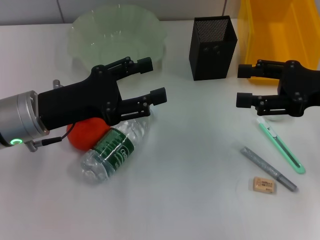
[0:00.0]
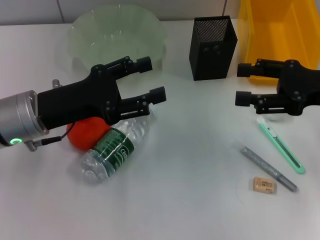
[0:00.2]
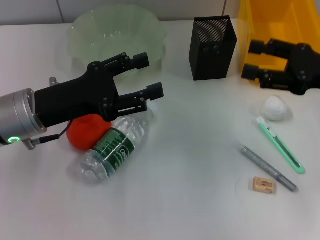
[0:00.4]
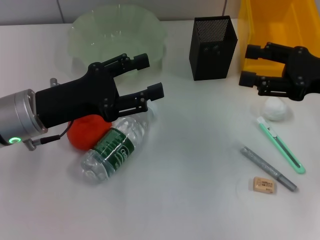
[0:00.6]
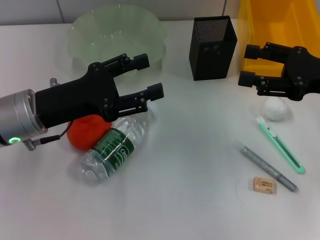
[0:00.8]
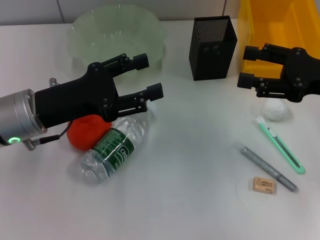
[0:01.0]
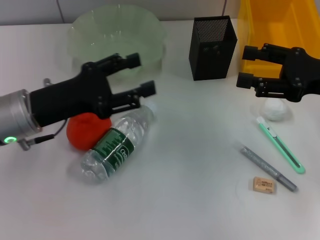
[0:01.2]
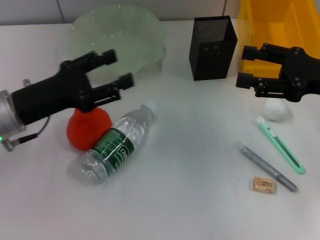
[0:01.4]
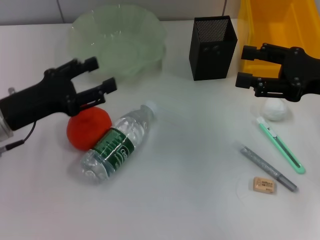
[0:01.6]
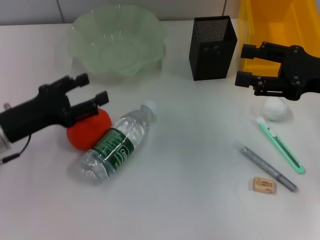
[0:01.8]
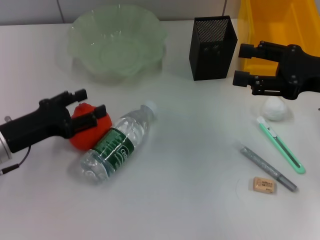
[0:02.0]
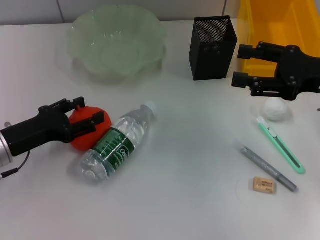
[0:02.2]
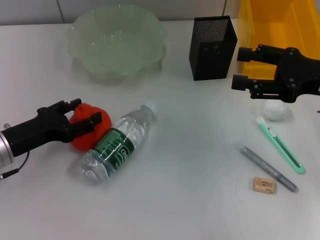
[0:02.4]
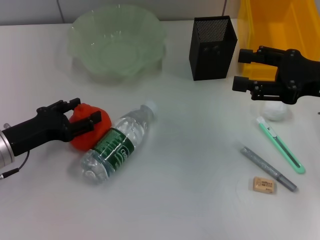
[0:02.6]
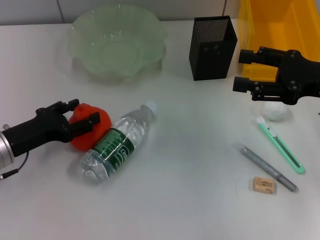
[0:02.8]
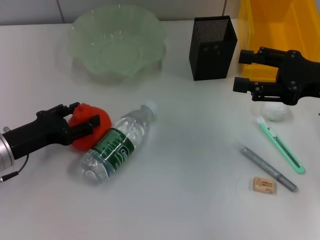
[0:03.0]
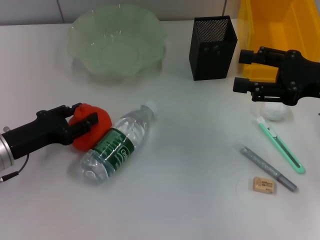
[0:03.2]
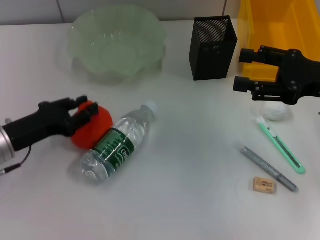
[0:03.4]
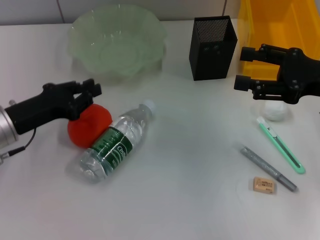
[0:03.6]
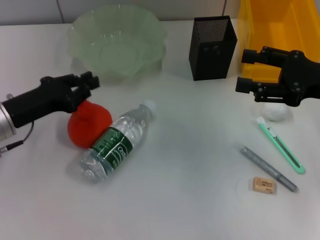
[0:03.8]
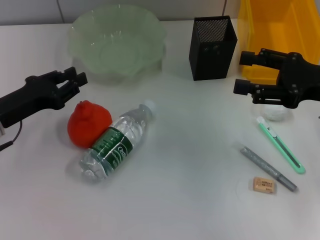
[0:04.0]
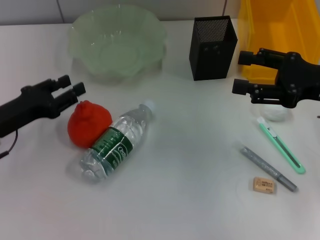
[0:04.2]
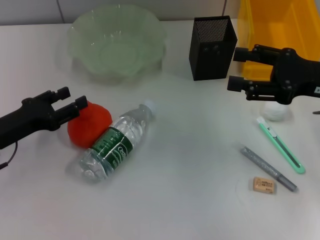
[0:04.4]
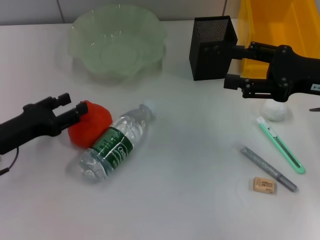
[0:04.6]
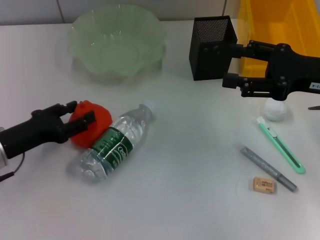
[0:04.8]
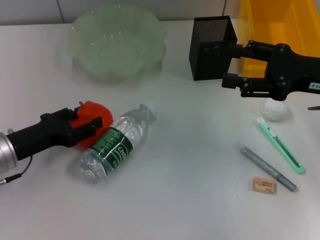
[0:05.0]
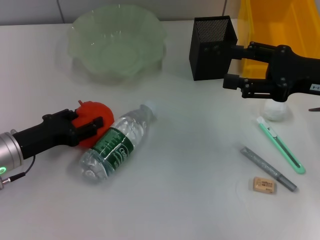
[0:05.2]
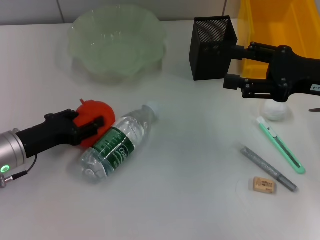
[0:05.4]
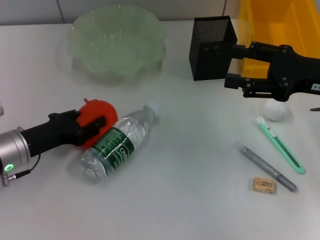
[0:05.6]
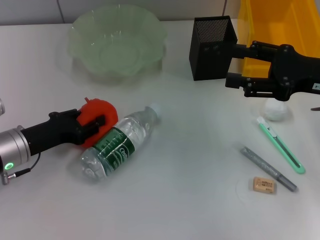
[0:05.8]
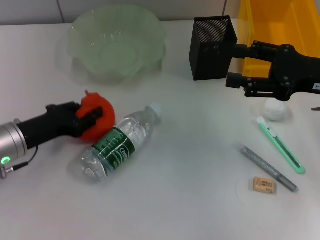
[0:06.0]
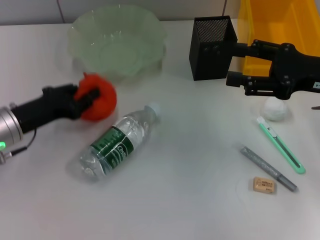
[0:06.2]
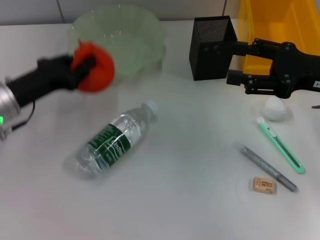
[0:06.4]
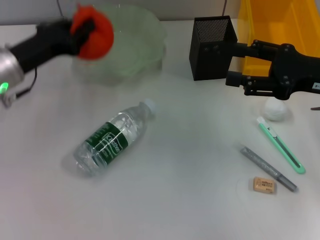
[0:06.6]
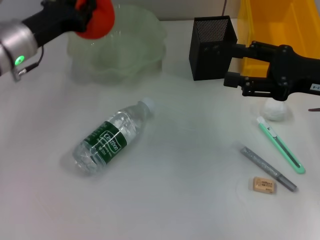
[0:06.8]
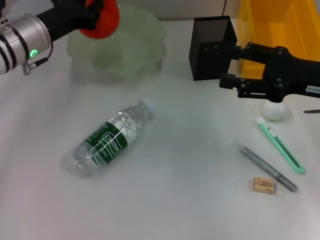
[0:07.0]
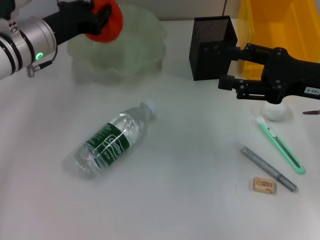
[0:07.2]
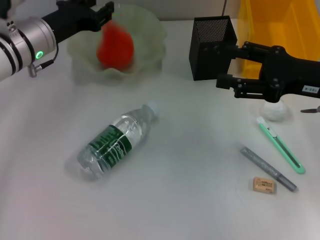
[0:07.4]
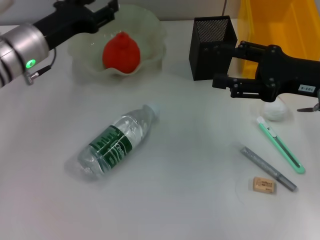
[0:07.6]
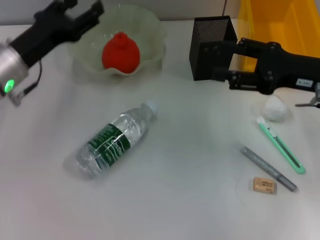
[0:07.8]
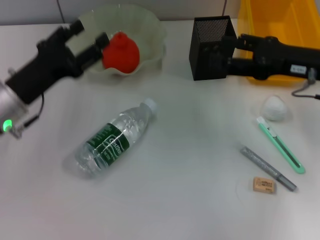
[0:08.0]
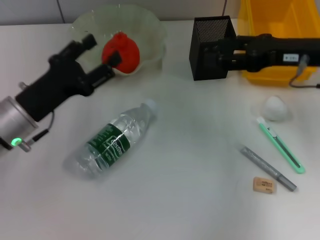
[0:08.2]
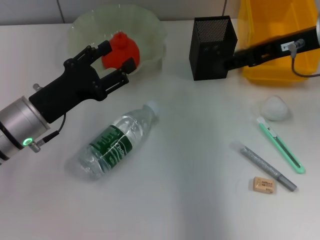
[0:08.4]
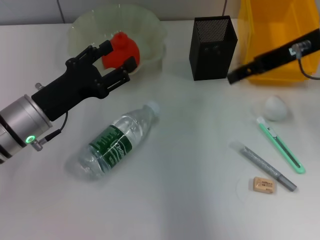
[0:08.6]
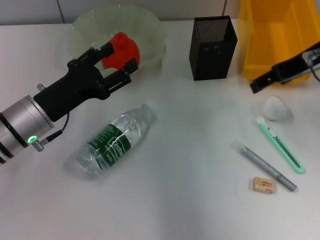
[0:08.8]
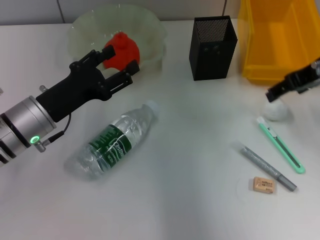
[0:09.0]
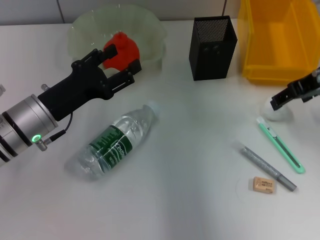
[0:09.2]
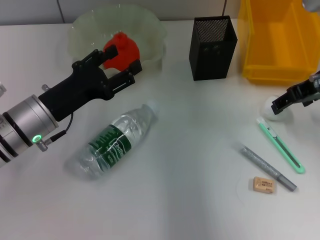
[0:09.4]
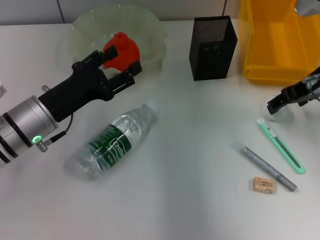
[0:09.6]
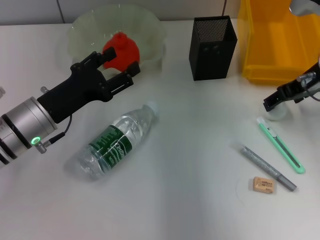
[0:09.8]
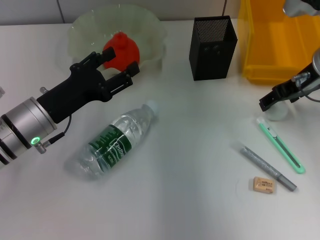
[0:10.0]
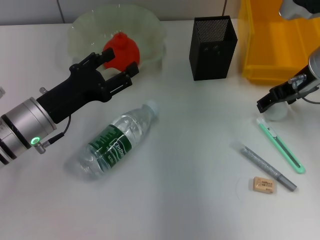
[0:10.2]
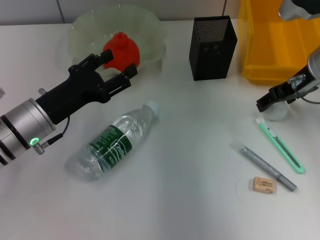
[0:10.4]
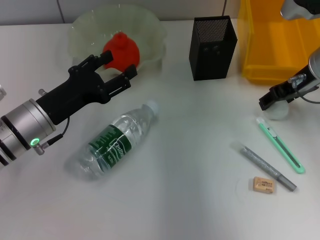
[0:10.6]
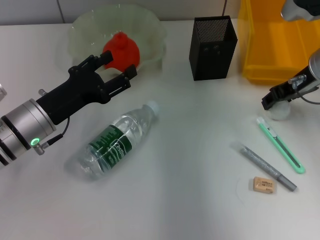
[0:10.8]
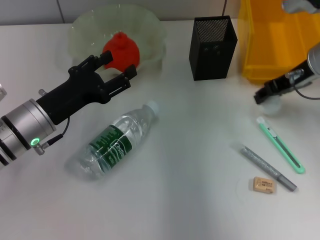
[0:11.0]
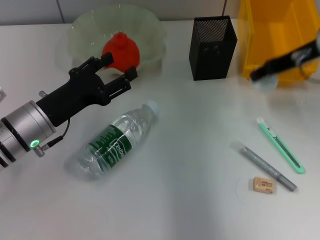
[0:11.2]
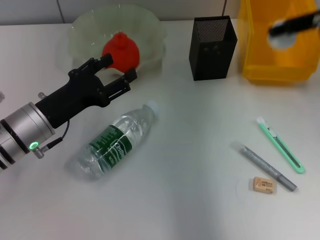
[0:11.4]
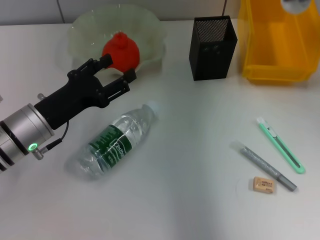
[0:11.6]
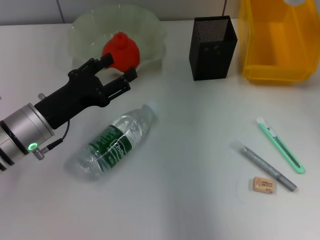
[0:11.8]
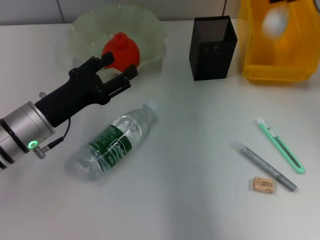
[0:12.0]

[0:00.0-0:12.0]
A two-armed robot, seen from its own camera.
Step, 0.0 to 5.8 s: Grab the orange with the left hand.
Step, 6.0 to 7.8 s: Place the orange into the fruit bowl with the left hand.
Step, 8.0 to 10.6 s: Grab the paper ball with the right hand.
0.0 to 1.6 s: The left gripper travels to the left by about 5 cm.
1.6 to 3.0 s: The left gripper goes about 5 cm downward.
3.0 to 4.4 s: The left gripper closes, then opens again.
4.4 to 6.0 s: The grippers make only small movements.
6.0 to 7.6 s: The left gripper travels forward, upward and to the right by approximately 15 cm.
7.6 to 9.0 s: The left gripper goes about 10 cm backward and downward, and opens. Meanwhile the right gripper goes some 10 cm upward and forward.
9.0 to 10.4 s: The right gripper moves downward, approximately 5 cm.
10.4 to 12.0 s: The right gripper moves upward, roughly 10 cm, and closes.

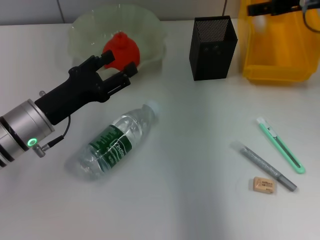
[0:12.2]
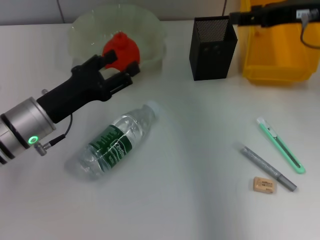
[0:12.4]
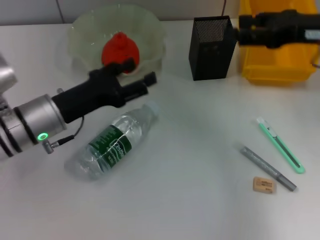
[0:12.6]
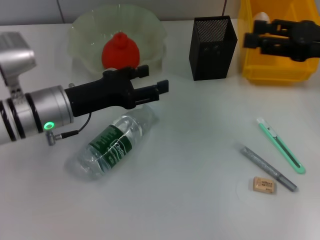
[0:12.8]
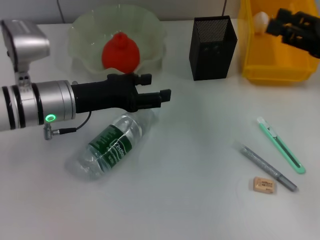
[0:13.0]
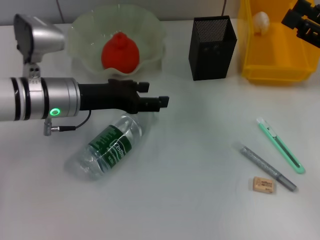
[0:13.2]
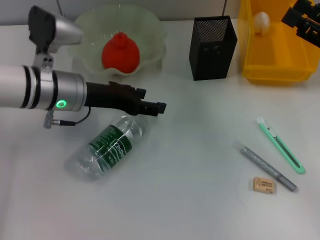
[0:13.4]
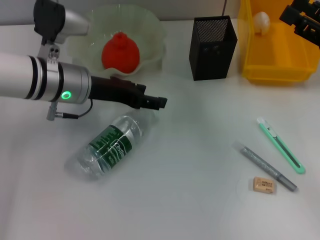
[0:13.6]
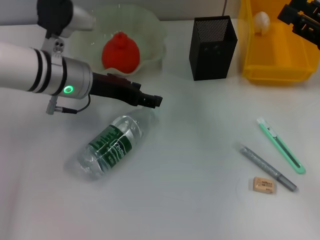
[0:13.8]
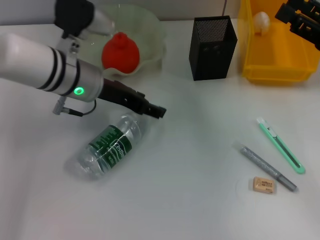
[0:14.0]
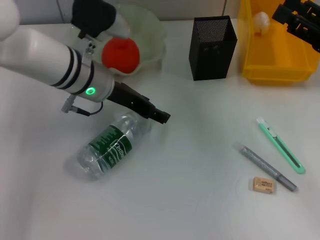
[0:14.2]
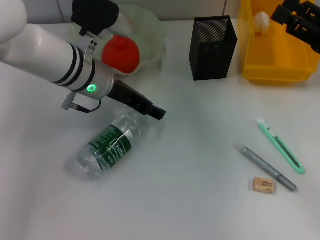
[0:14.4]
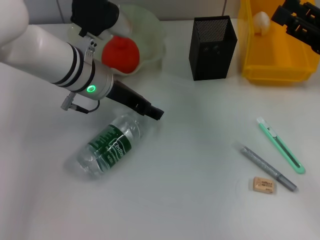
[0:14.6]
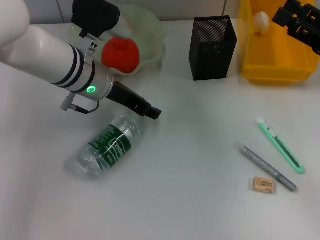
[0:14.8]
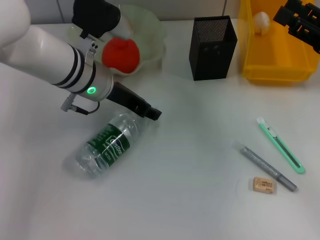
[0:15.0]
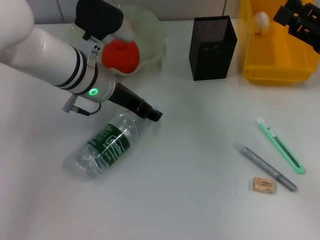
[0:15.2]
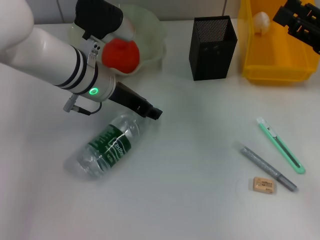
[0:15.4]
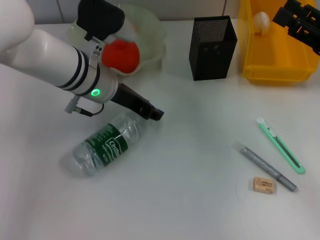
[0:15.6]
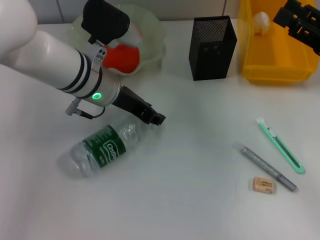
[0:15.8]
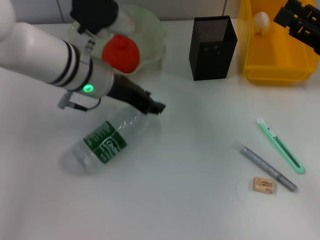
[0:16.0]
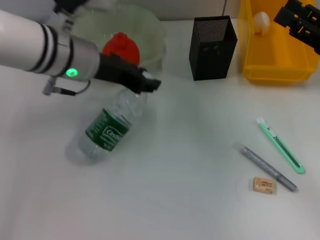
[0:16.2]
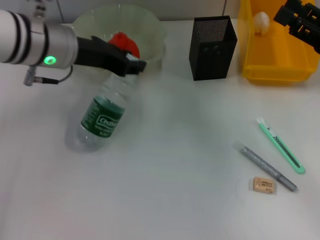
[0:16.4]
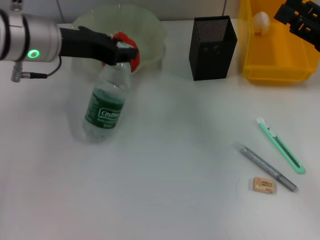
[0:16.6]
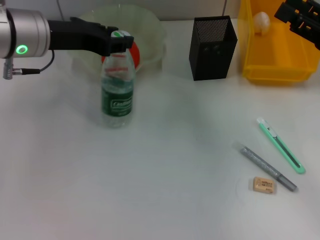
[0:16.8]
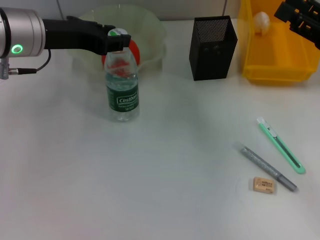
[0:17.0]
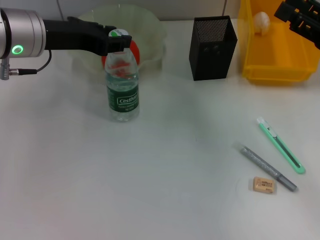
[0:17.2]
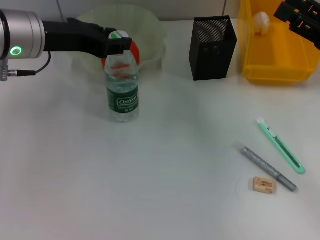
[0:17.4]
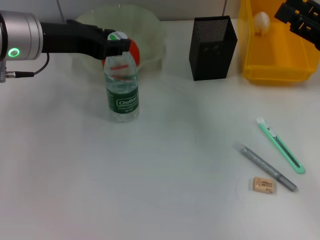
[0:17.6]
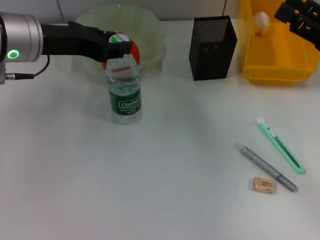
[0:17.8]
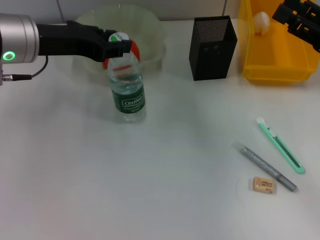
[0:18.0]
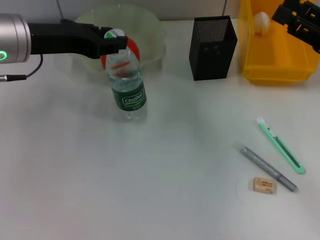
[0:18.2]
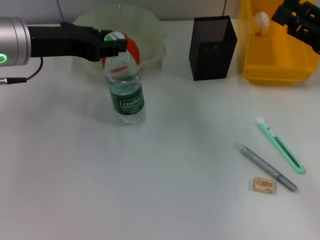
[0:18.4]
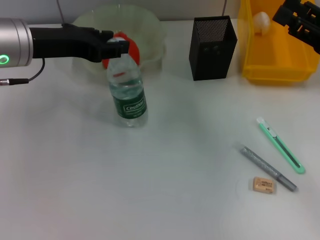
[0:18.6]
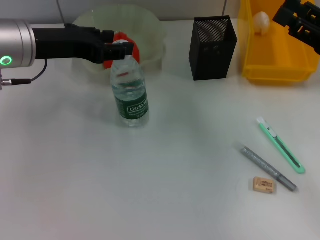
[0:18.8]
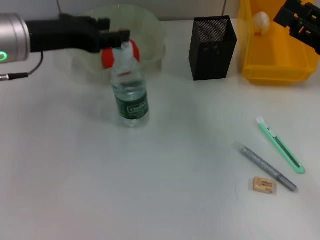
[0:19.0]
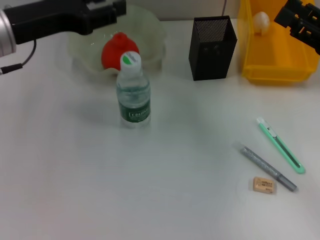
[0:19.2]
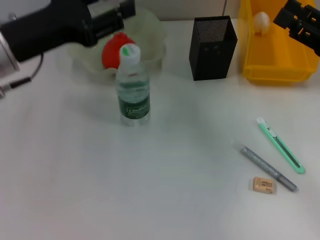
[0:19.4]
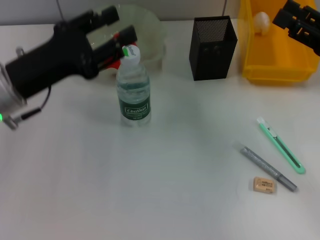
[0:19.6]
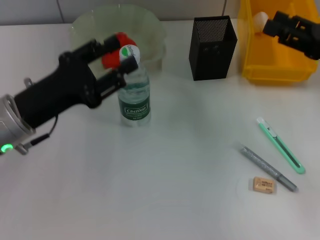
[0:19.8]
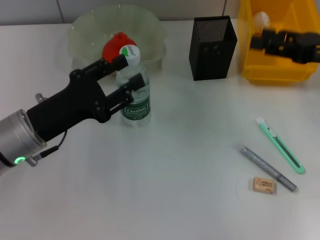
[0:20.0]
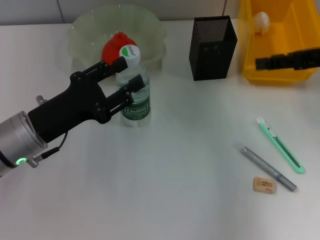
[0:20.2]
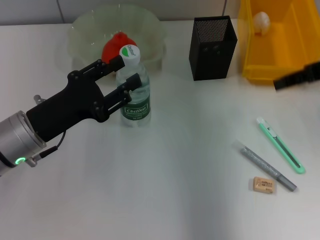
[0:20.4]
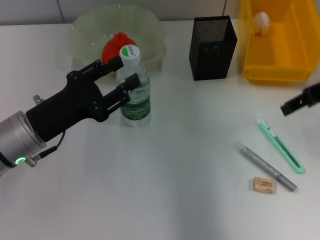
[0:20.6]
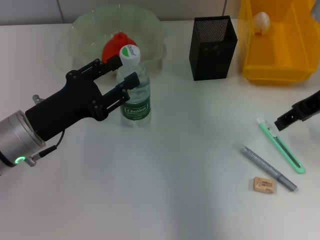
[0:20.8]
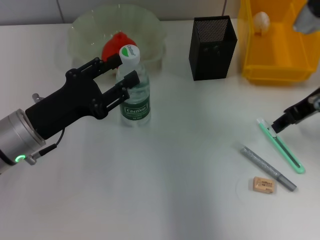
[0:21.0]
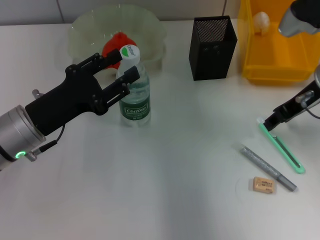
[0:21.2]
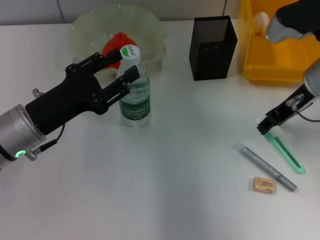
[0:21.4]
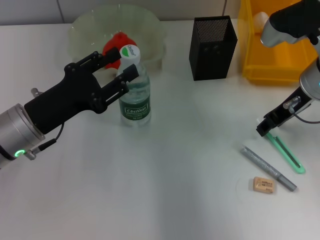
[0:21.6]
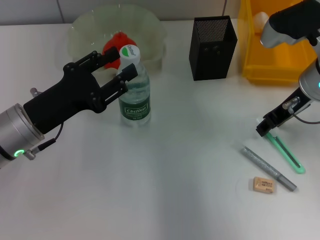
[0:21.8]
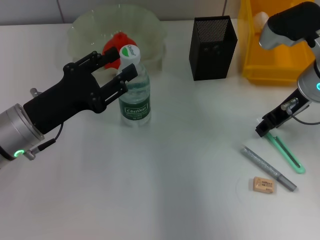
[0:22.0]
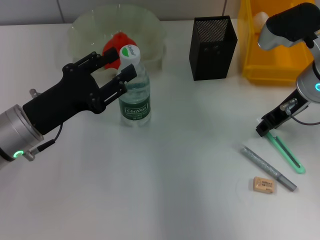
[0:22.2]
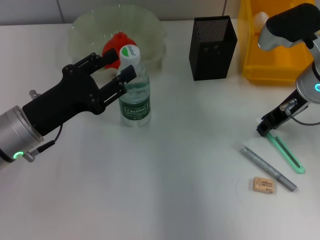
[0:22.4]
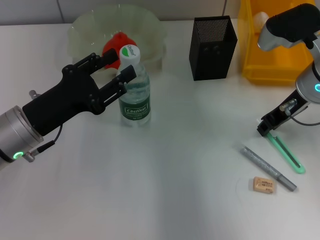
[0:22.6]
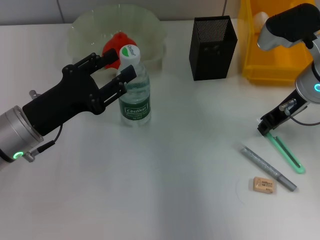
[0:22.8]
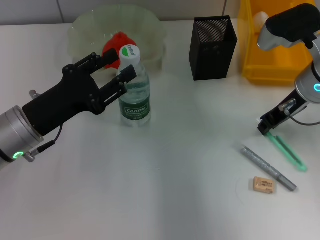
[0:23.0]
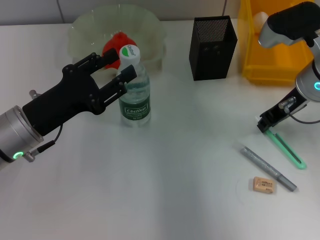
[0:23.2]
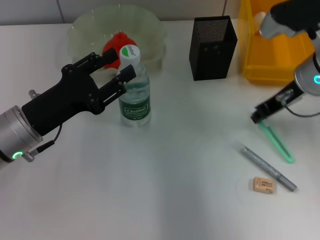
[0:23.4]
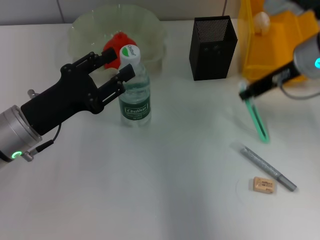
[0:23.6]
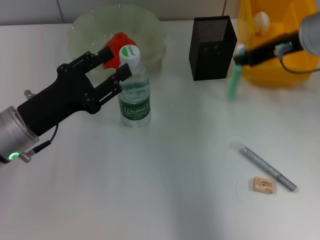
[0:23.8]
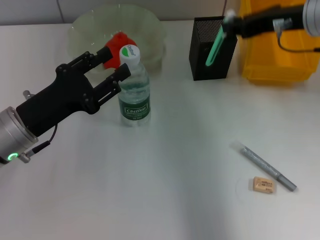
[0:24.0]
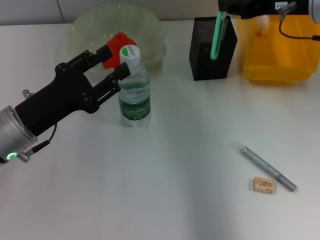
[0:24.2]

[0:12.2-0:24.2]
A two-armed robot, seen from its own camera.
Step, 12.8 to 15.6 s: Grab the water bottle with the left hand.
Step, 15.8 to 19.6 s: Place the water bottle on the table with the left hand.
Step, 19.8 to 23.0 s: Grab the blue utility knife with the right hand.
12.2 to 13.8 s: The right gripper shifts some 15 cm backward, downward and to the right. The left gripper is displaced forward, upward and to the right by about 10 cm.
13.8 to 15.2 s: The left gripper closes its fingers.
15.2 to 16.6 s: The left gripper heads upward and to the left, covering approximately 10 cm.
16.6 to 18.2 s: The grippers stay close to where they were, moving slightly.
18.2 to 19.8 s: The left gripper goes roughly 10 cm downward and backward.
19.8 to 21.2 s: The right gripper is displaced to the left by approximately 10 cm, and travels upward and back again, some 10 cm each way.
21.2 to 22.6 s: There are only small adjustments of the grippers.
22.6 to 24.2 s: The right gripper moves upward, about 10 cm.
